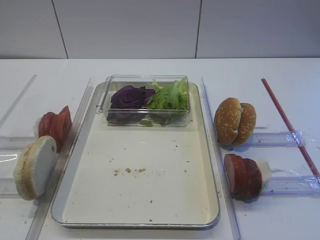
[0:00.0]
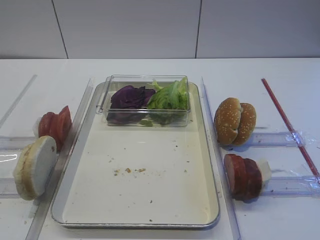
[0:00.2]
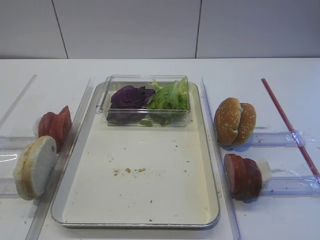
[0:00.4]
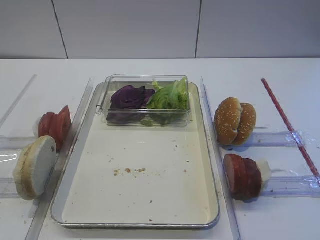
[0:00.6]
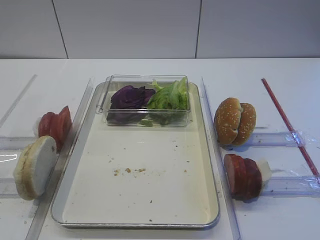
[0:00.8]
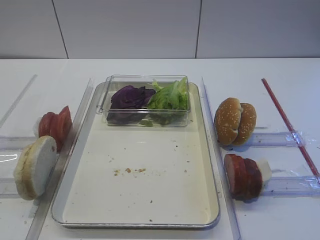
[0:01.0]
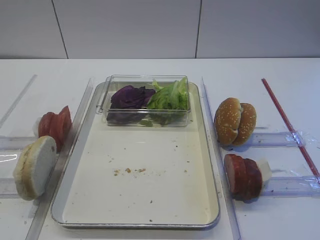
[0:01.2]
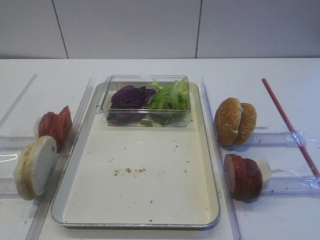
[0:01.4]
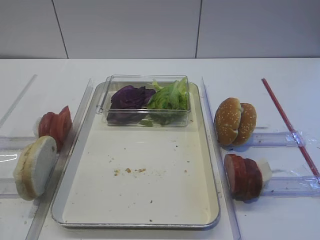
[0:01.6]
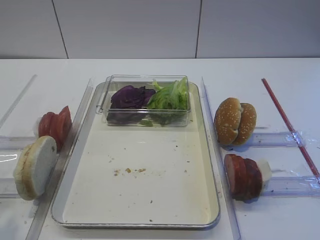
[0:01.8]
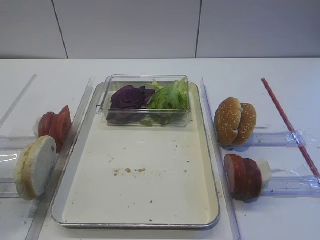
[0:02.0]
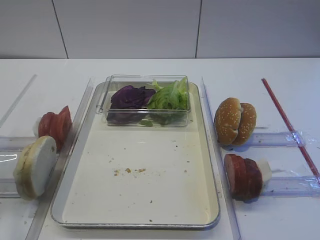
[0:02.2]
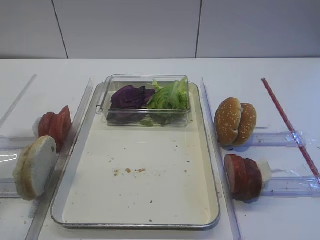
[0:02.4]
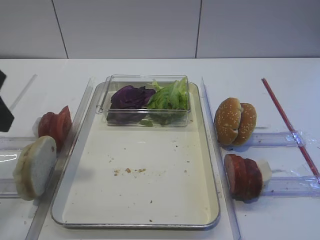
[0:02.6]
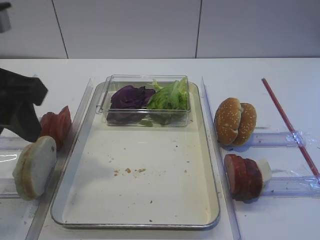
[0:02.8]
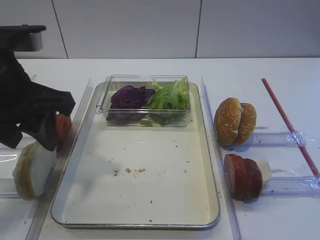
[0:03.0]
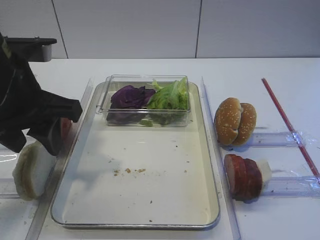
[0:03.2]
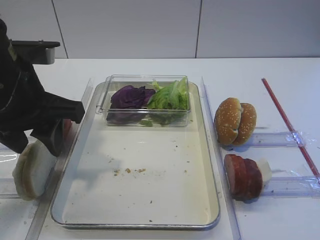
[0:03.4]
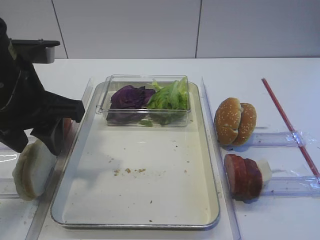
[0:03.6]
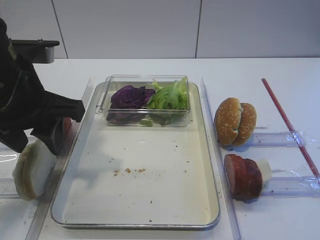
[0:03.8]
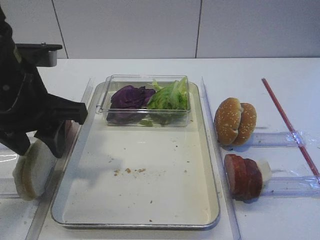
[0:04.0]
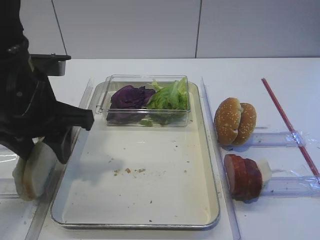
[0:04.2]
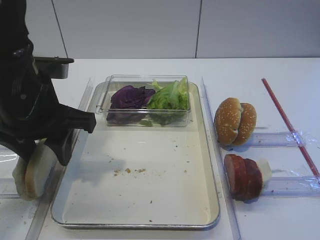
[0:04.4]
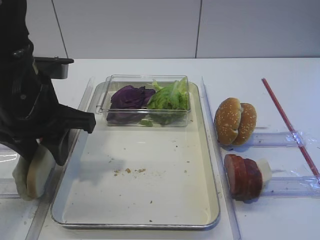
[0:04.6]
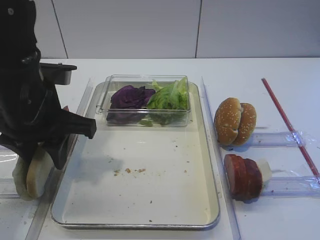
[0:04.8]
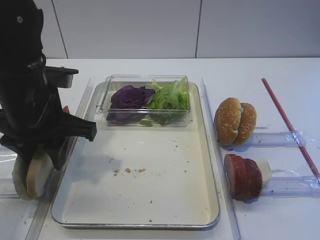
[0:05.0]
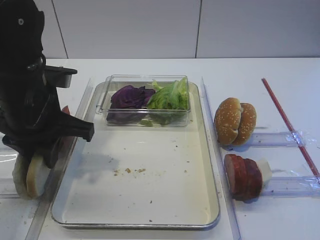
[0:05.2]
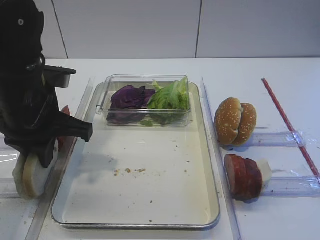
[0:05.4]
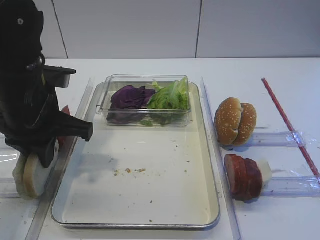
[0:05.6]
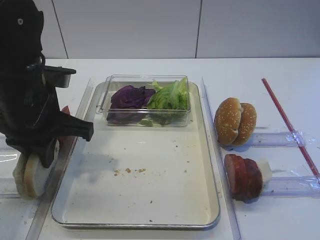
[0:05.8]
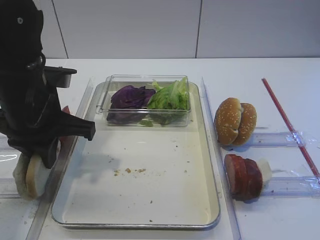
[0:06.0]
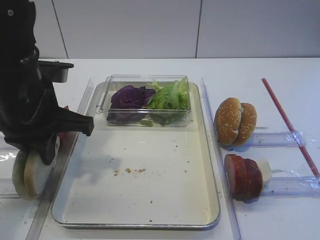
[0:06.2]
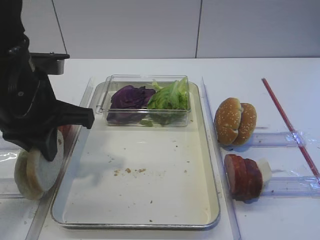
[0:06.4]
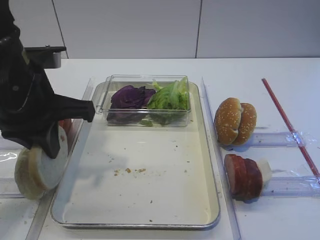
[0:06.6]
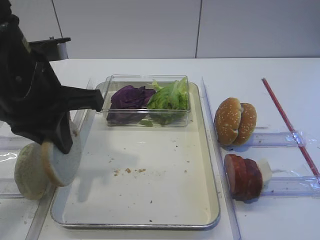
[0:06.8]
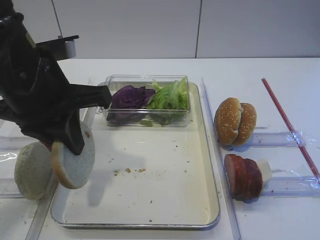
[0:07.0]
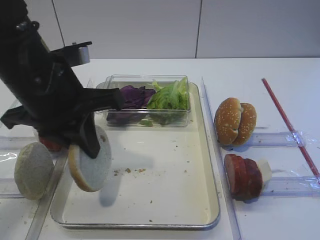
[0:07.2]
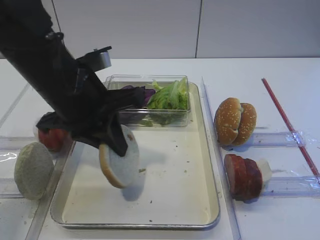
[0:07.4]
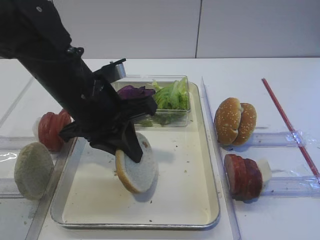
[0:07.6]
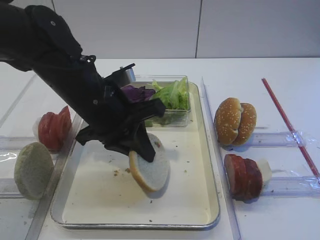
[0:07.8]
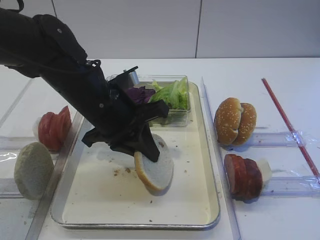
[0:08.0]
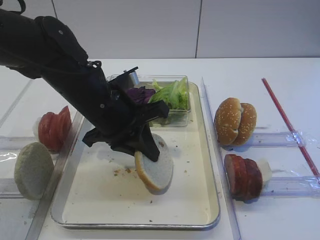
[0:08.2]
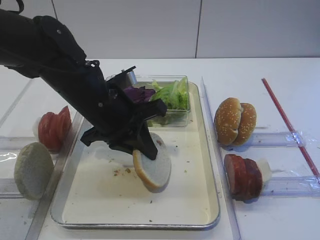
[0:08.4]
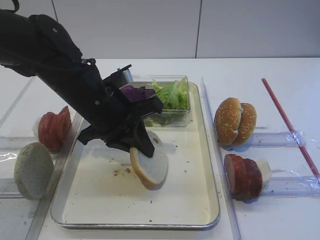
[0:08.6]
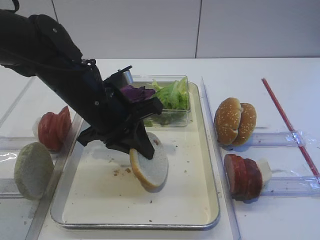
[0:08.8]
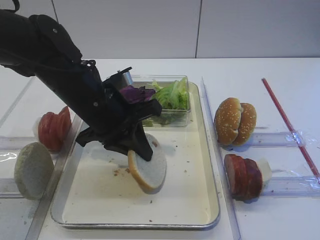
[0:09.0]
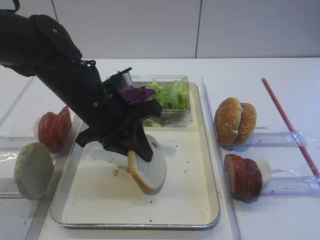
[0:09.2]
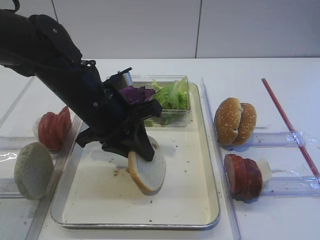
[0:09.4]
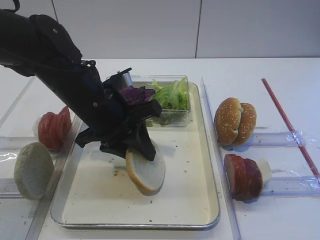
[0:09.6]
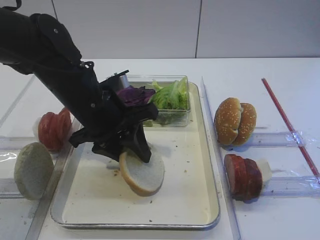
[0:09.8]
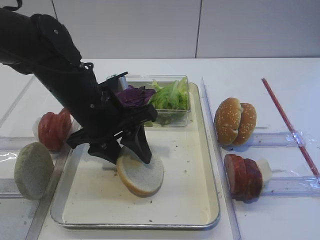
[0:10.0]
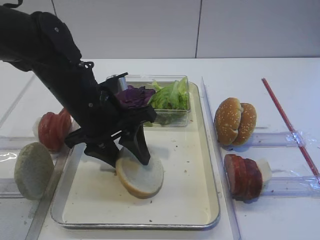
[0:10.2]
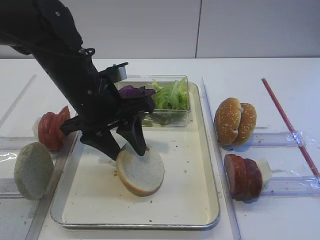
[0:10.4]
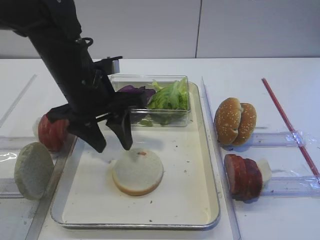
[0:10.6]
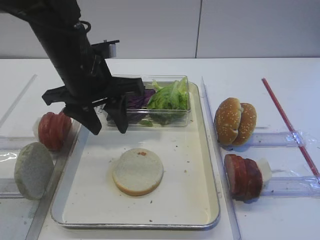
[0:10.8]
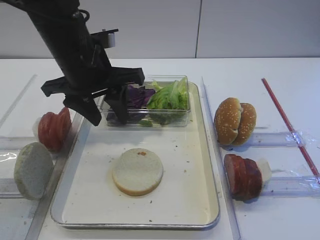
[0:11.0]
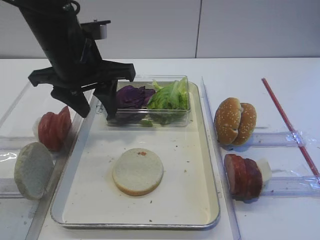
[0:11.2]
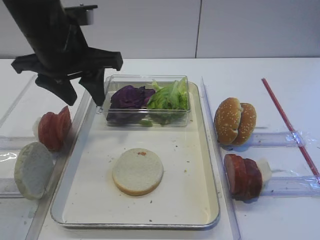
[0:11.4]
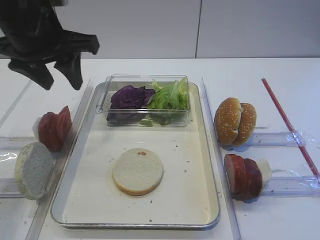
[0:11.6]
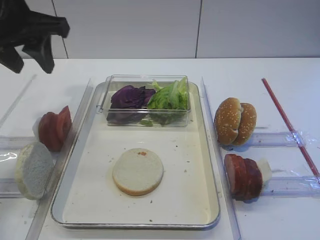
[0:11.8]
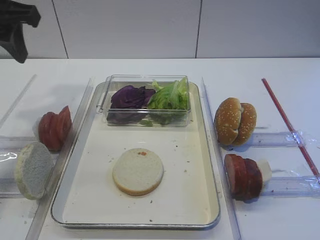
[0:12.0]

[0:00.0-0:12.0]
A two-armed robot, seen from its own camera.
Step, 0:00.0 to 0:06.4: Pick up the bread slice with the left gripper.
Step, 0:06.6 to 0:10.4: Place the bread slice on the tray with the left gripper.
0:01.6 to 0:03.0: The left gripper shifts about 20 cm forward and to the right.
0:03.0 to 0:04.4: The left gripper ends up about 5 cm from where it was.
0:04.4 to 0:06.0: The left gripper closes up.
0:06.0 to 0:07.6: The left gripper shifts roughly 5 cm to the right.
0:07.6 to 0:09.0: The grippers move only a little.
0:09.0 to 0:10.4: The left gripper opens up.
0:10.4 to 0:12.0: The left gripper goes about 20 cm upward and to the left.

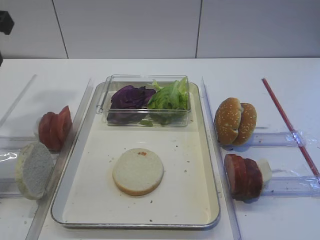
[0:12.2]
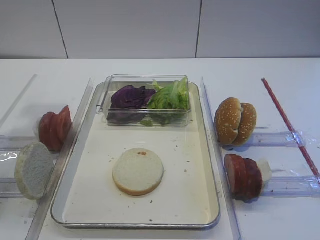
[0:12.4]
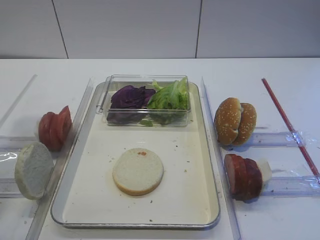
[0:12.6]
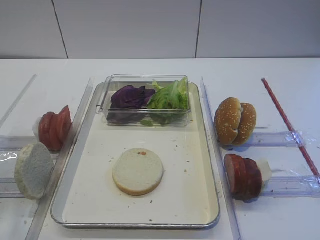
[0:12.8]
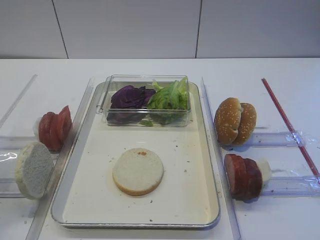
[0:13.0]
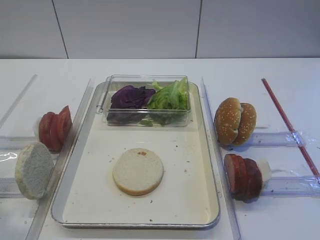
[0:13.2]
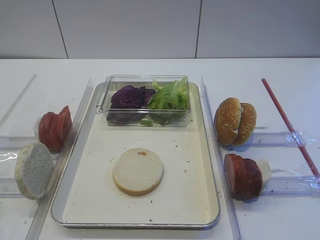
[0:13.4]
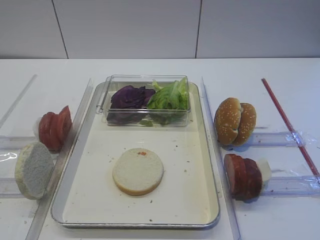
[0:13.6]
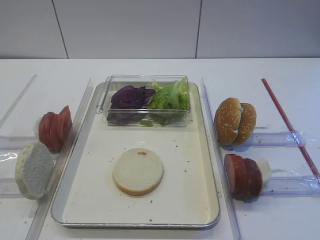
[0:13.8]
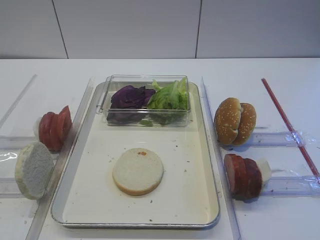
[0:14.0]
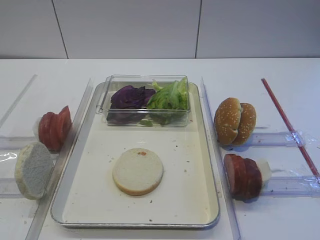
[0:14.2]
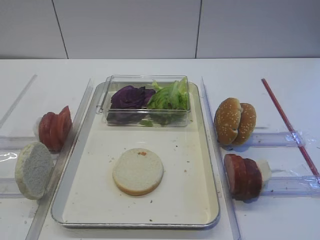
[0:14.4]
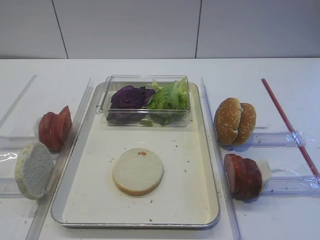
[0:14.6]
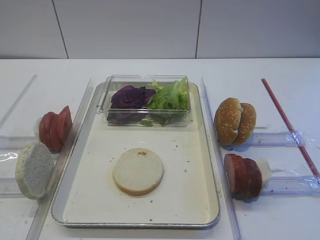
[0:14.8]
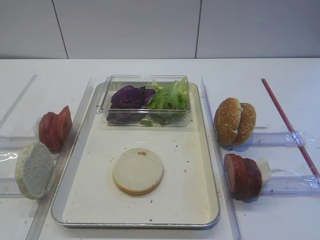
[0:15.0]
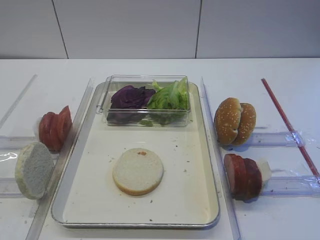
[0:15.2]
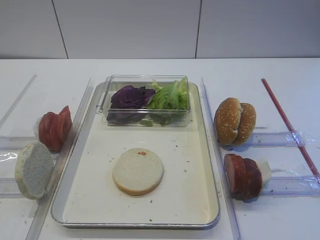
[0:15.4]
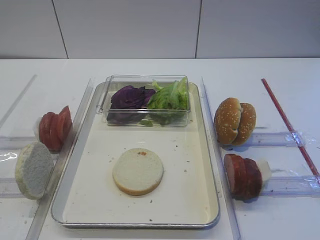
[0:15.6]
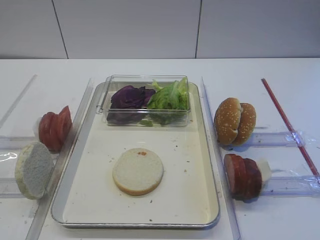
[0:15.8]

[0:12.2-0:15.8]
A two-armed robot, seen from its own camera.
0:12.2 to 0:14.0: The left gripper heads backward, covering approximately 30 cm.

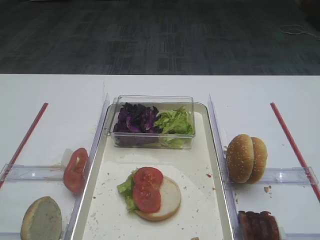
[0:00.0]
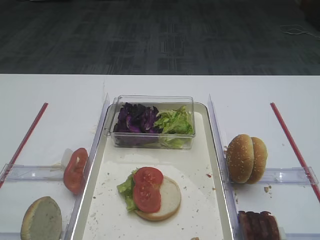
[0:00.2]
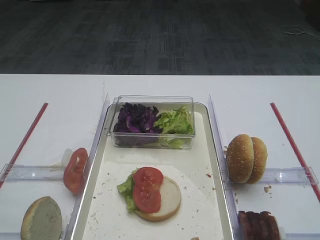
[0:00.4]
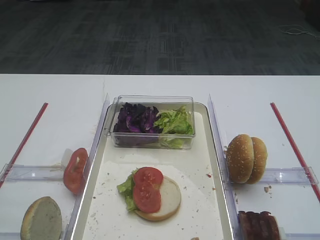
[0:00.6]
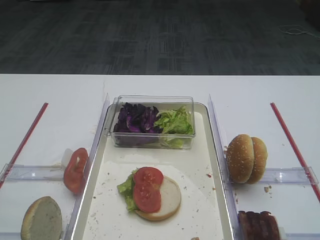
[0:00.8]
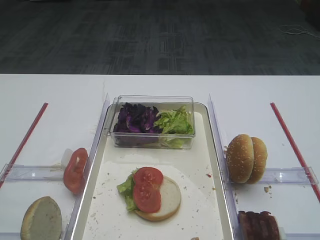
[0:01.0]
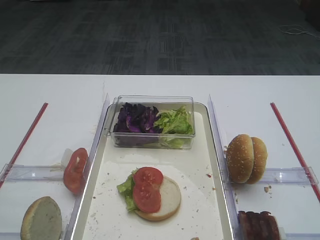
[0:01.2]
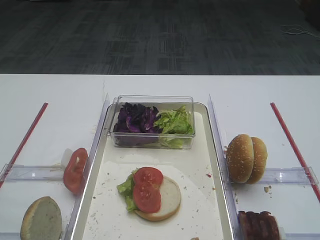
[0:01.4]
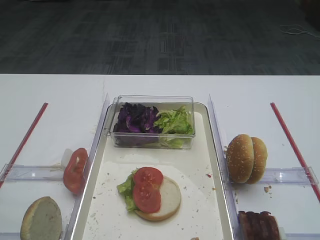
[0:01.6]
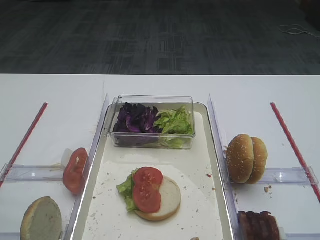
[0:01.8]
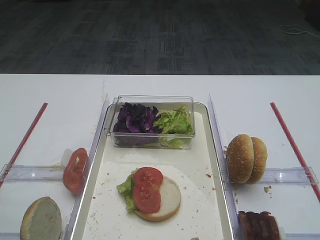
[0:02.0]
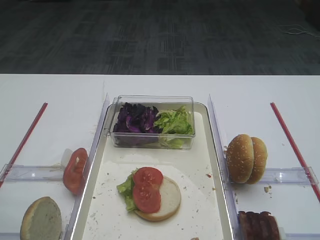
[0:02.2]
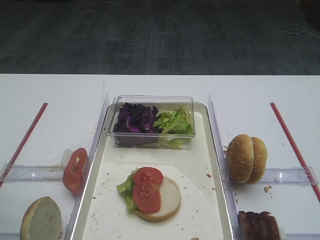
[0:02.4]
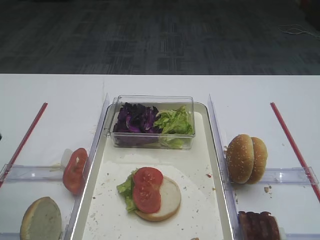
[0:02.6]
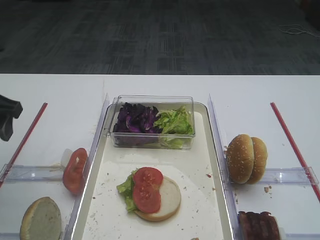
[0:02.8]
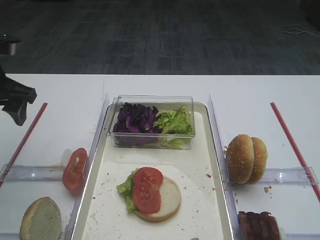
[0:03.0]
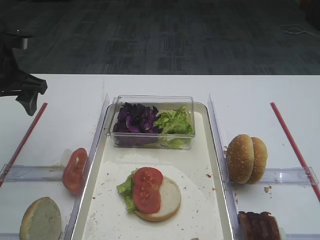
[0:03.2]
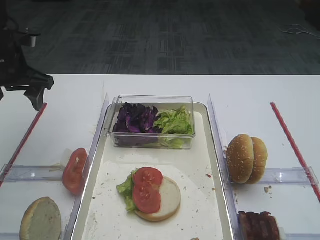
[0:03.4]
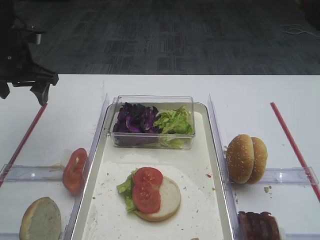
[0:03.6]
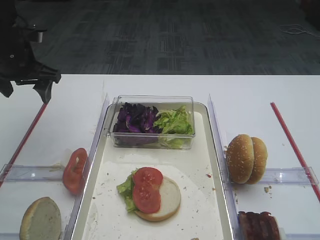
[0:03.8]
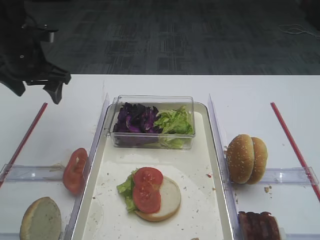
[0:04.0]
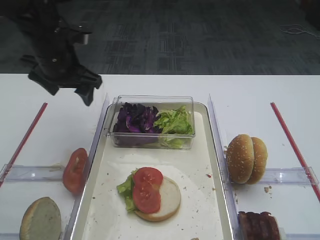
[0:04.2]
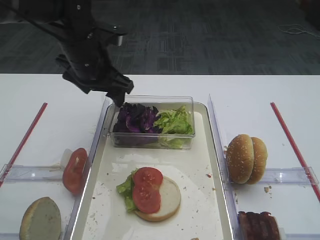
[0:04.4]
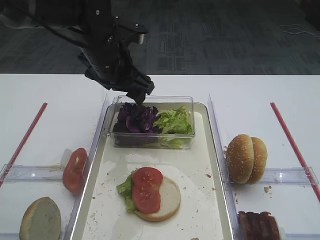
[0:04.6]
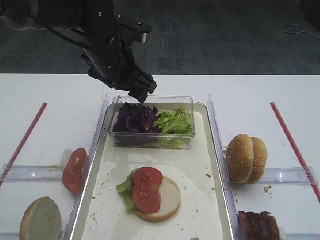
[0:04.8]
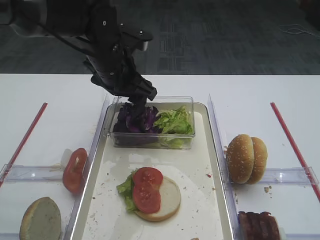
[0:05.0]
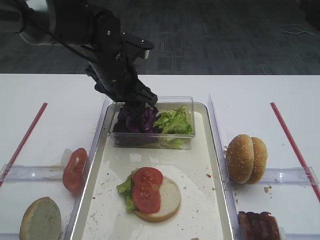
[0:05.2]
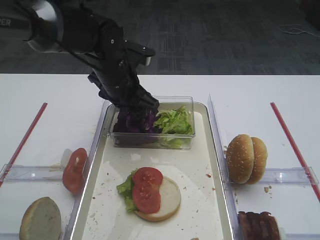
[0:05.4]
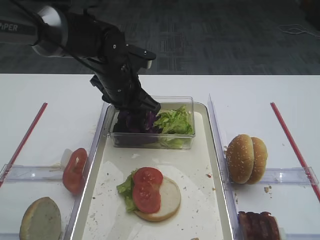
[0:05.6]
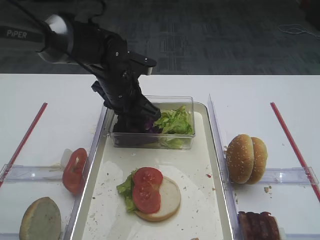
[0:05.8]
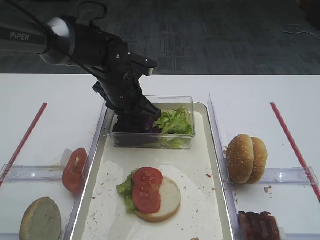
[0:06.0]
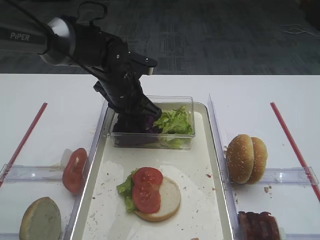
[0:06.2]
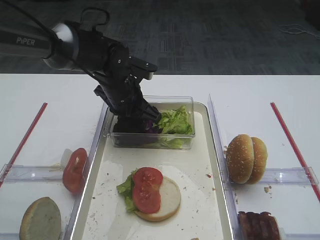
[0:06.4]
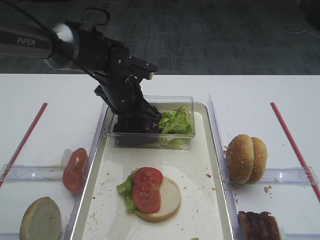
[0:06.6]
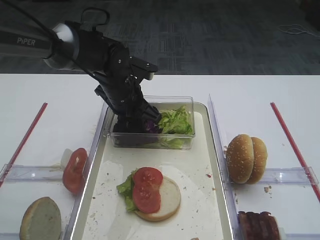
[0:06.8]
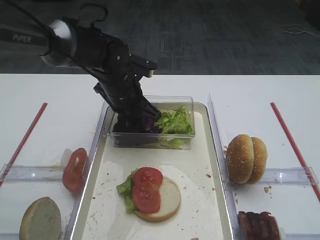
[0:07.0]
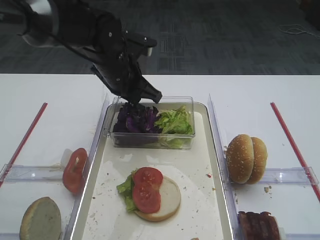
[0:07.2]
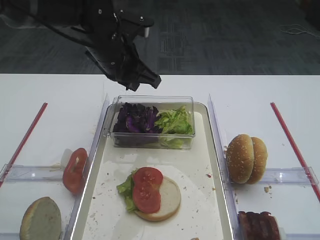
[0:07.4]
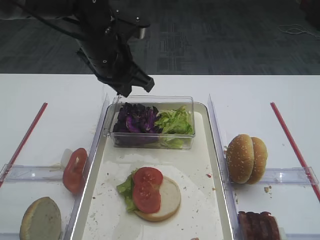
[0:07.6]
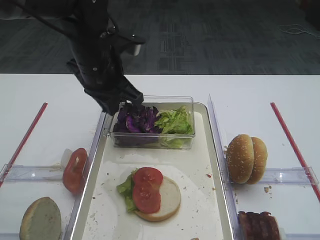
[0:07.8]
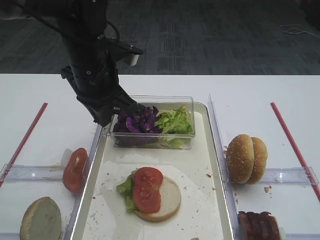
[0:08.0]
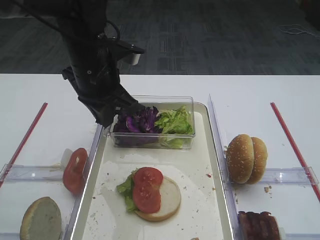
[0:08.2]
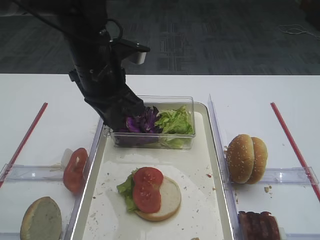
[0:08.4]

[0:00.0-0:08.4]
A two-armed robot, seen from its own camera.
Step, 0:00.0 to 0:07.0: Pick up the purple cabbage with the left gripper.
0:01.4 to 0:02.8: The left gripper is displaced forward by some 20 cm.
0:02.8 to 0:04.2: The left gripper goes some 15 cm forward and to the right.
0:04.2 to 0:05.6: The left gripper travels to the right by roughly 10 cm.
0:05.6 to 0:07.0: The left gripper closes.
0:07.0 to 0:08.4: The left gripper moves upward and backward, some 10 cm.
